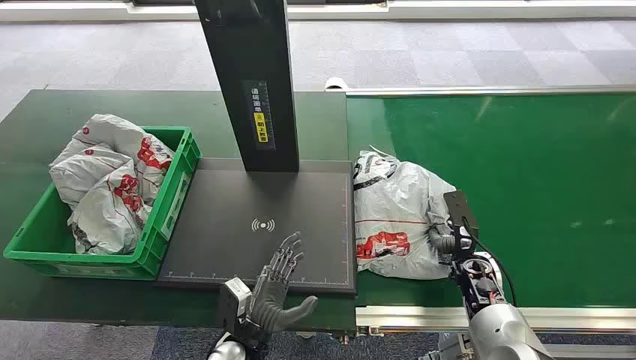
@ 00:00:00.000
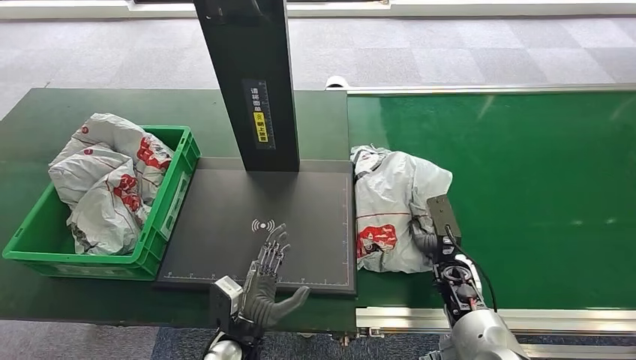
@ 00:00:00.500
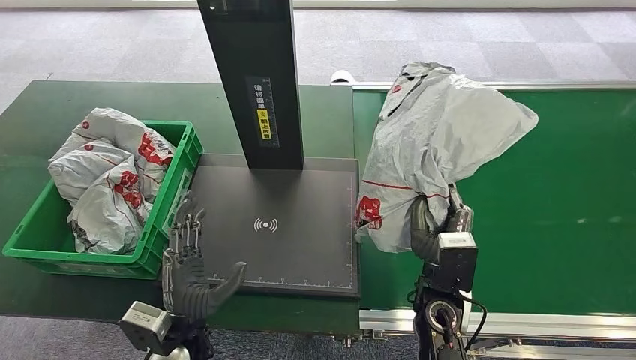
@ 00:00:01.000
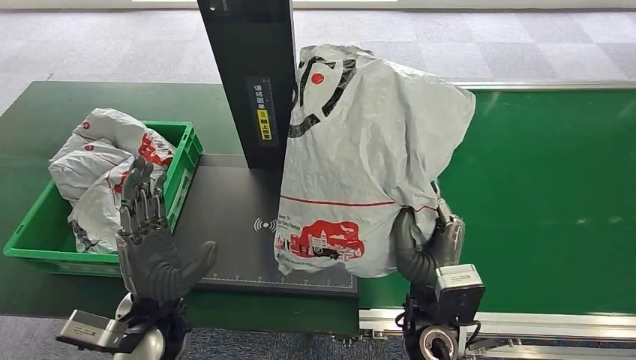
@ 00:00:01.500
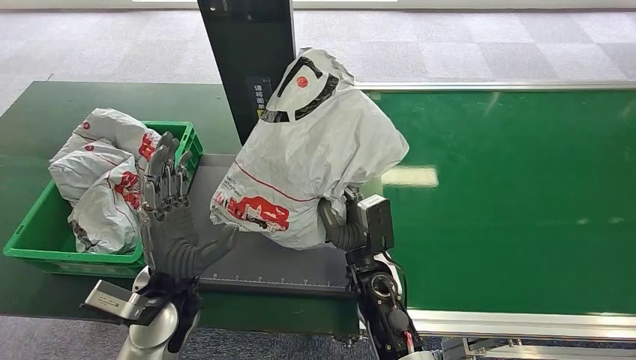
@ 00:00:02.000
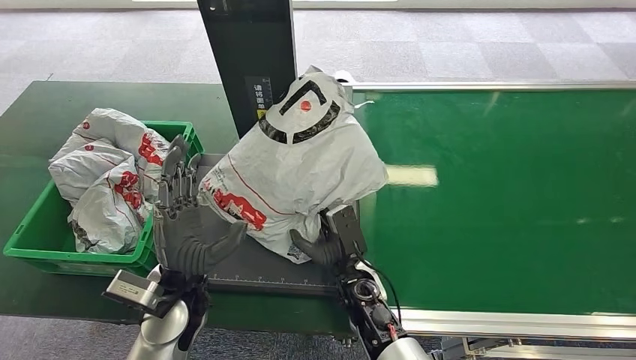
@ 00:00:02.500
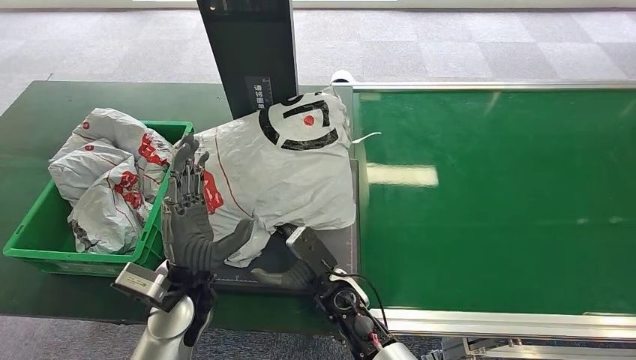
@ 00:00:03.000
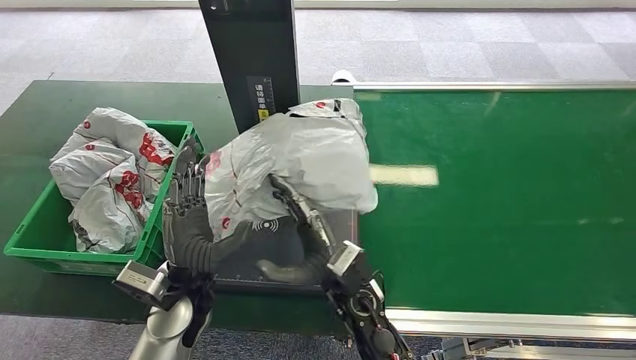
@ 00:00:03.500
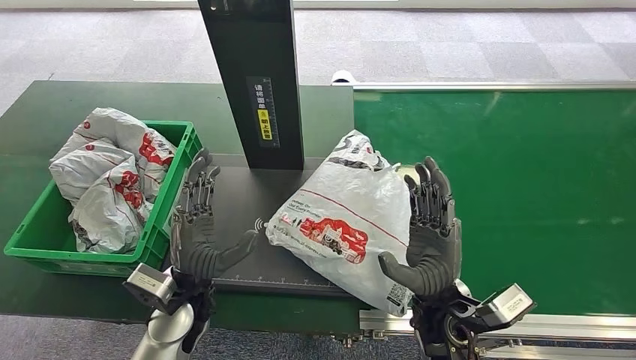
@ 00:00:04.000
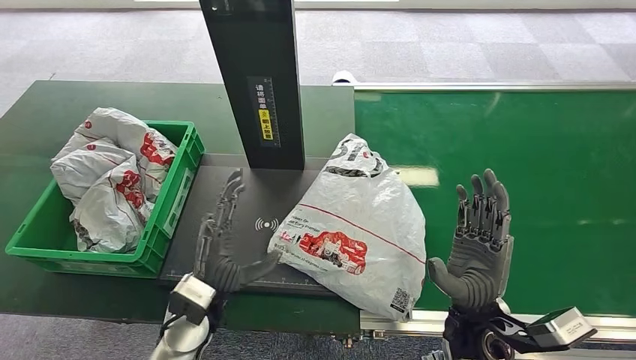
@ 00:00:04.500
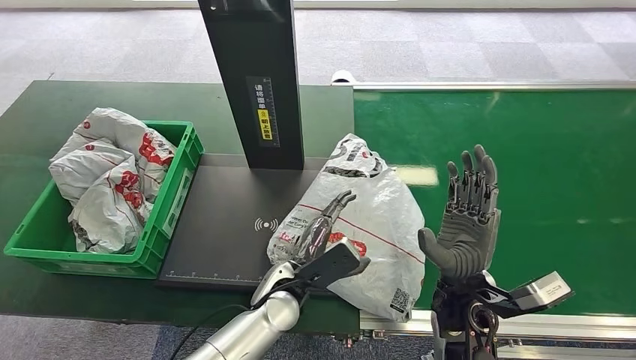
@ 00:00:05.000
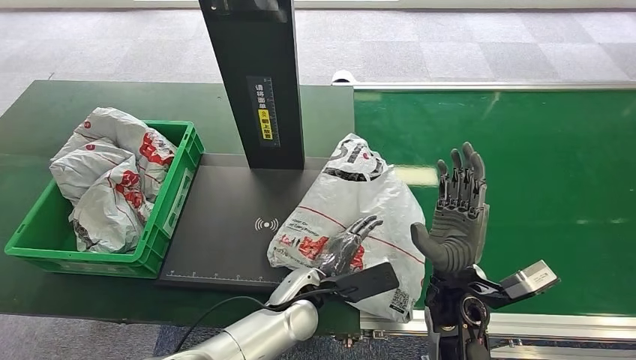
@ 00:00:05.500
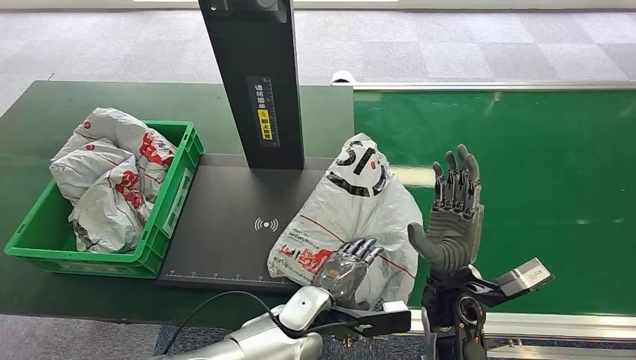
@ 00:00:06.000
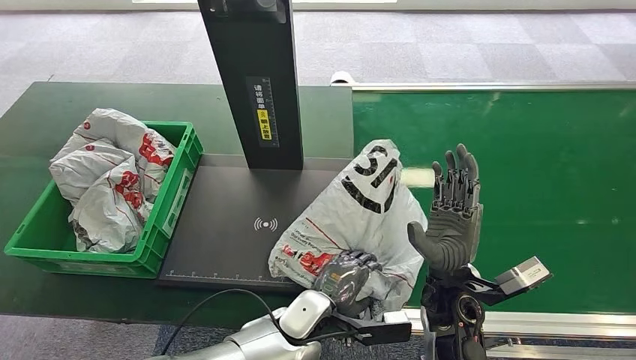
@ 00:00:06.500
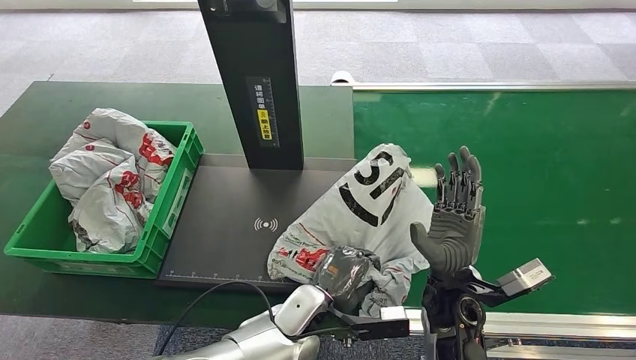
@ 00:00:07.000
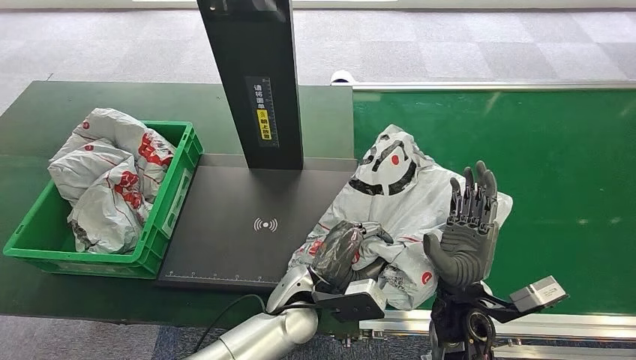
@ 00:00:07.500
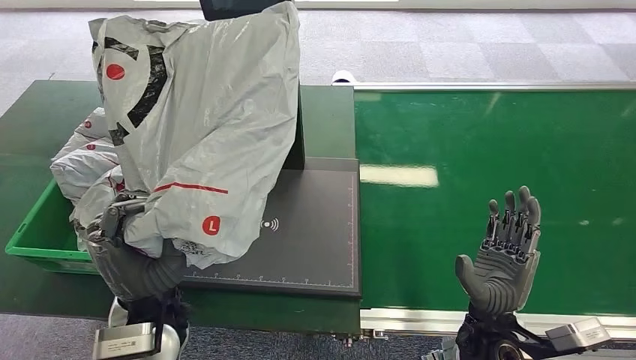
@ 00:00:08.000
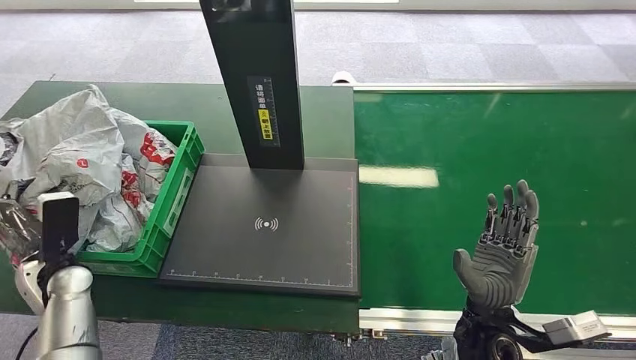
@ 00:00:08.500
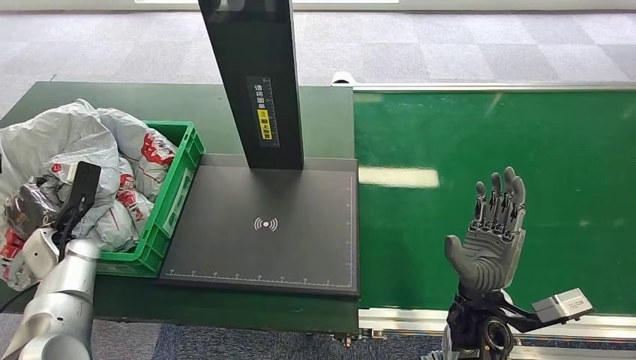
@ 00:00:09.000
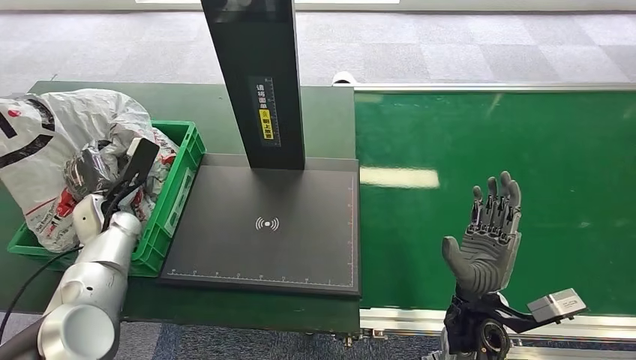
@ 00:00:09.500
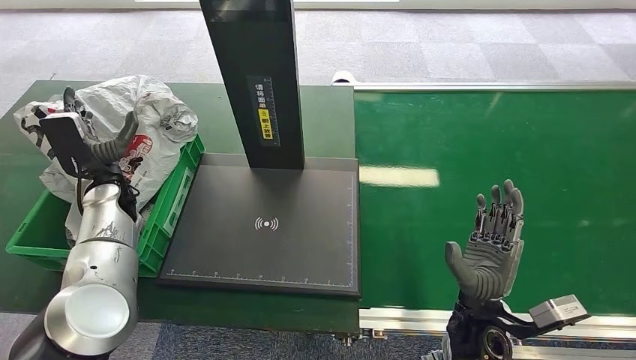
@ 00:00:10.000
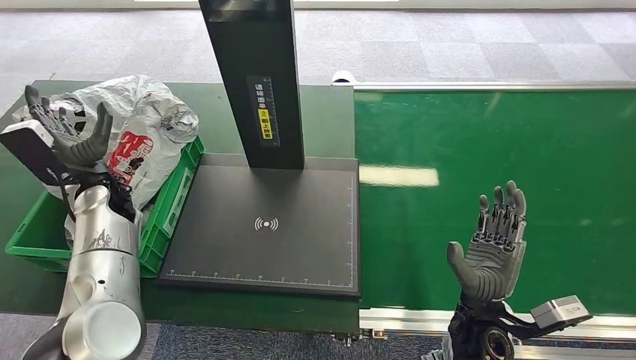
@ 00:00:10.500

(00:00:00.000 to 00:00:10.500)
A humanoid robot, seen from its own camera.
Step, 00:00:00.000 - 00:00:02.500: Pick up the package from the conveyor belt.
Step, 00:00:03.000 - 00:00:05.000: Place the package onto the inbound machine.
Step, 00:00:05.500 - 00:00:08.000: Pick up the package from the inbound machine.
Step, 00:00:08.500 - 00:00:10.500: Place the package into the parcel locker.
00:00:04.000 - 00:00:06.500: The left hand is displaced to the right and downward by roughly 15 cm.
00:00:08.500 - 00:00:10.500: The left hand moves forward, upward and to the right, some 15 cm.
